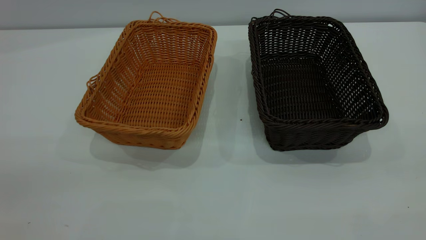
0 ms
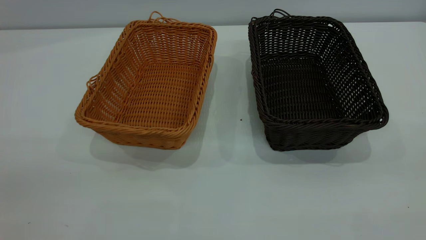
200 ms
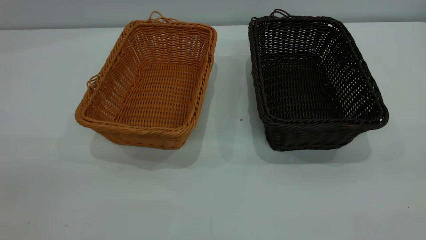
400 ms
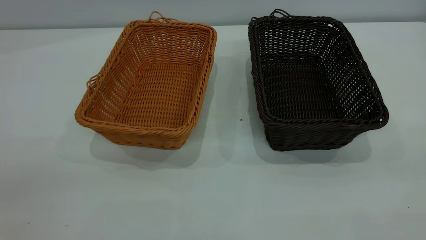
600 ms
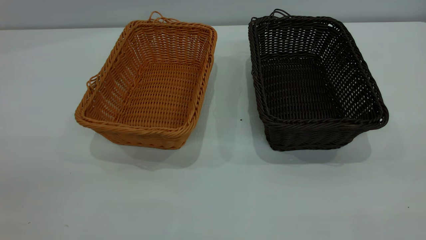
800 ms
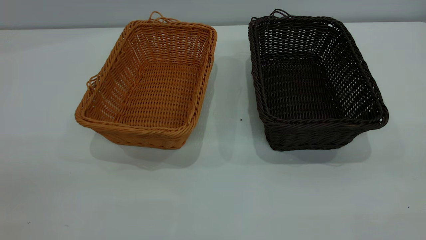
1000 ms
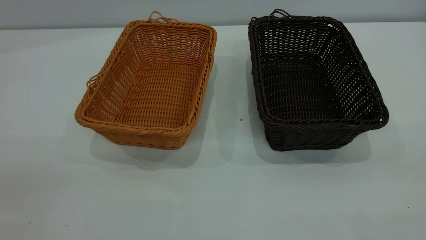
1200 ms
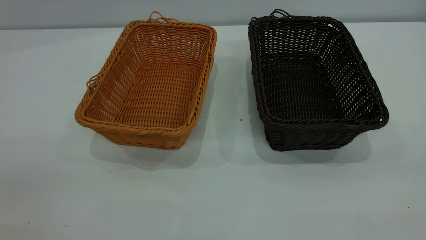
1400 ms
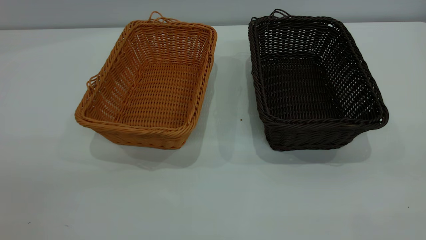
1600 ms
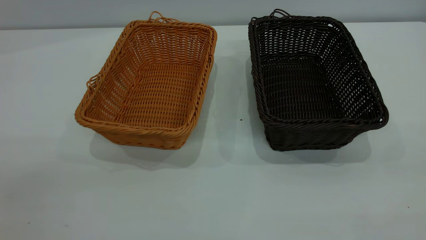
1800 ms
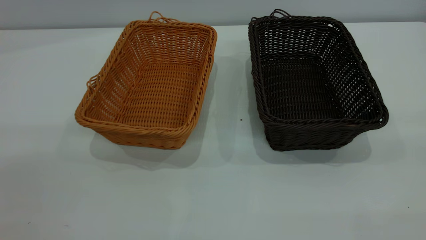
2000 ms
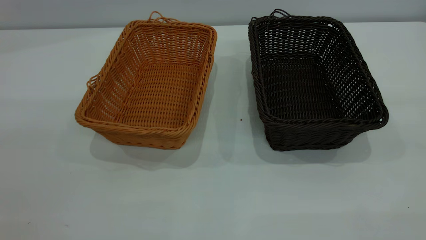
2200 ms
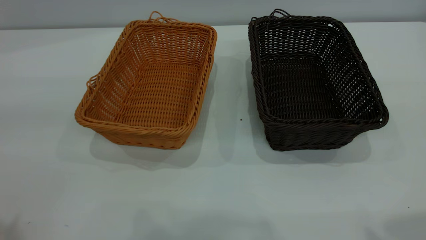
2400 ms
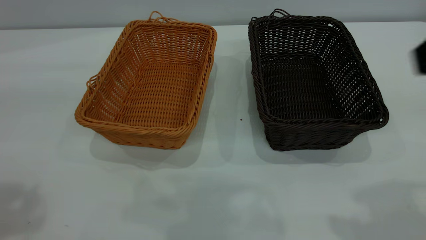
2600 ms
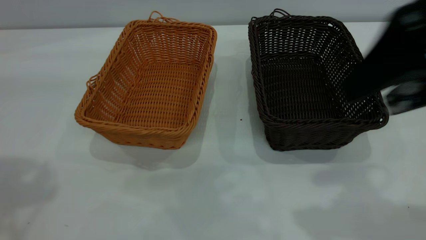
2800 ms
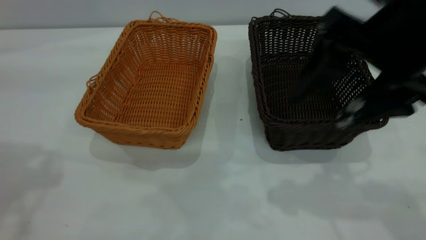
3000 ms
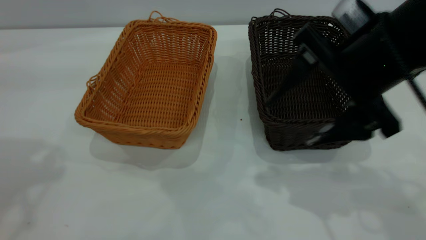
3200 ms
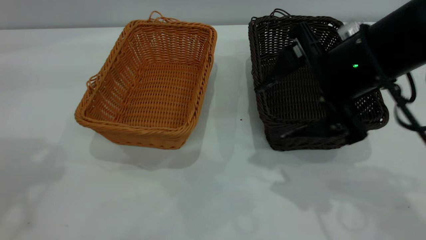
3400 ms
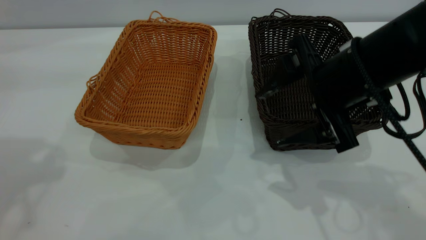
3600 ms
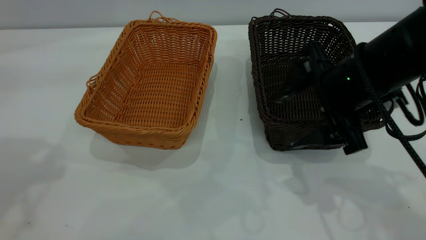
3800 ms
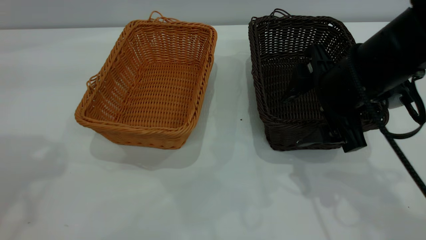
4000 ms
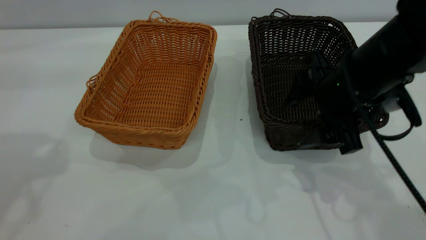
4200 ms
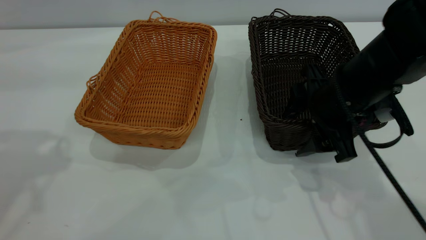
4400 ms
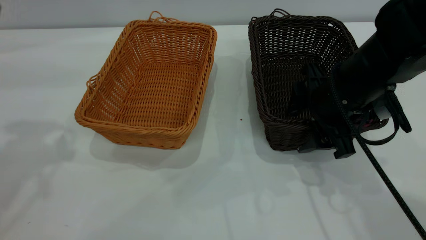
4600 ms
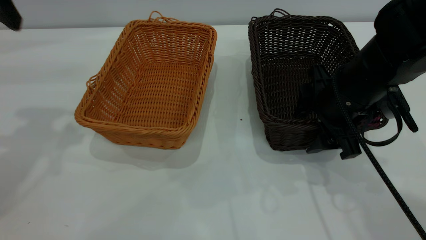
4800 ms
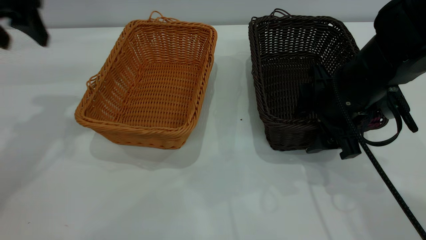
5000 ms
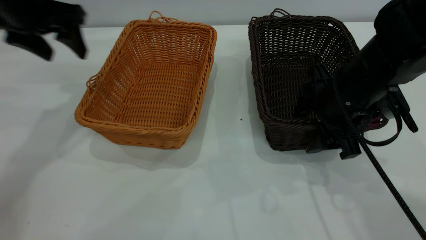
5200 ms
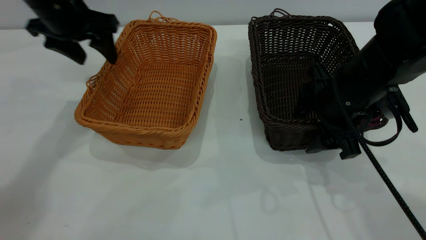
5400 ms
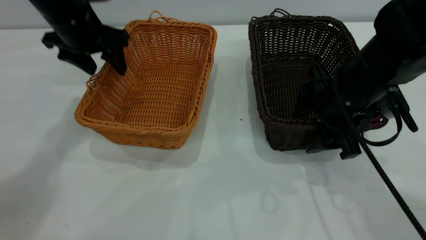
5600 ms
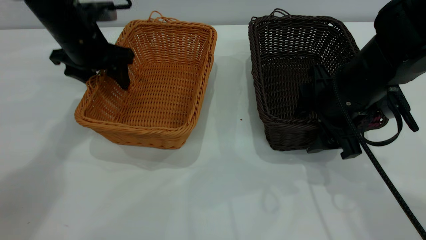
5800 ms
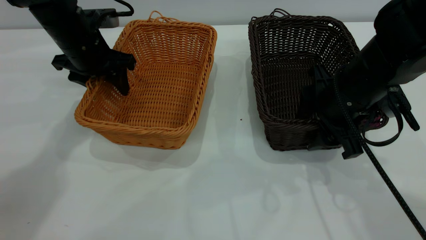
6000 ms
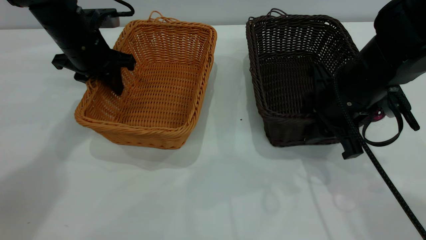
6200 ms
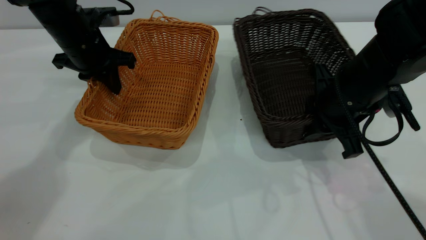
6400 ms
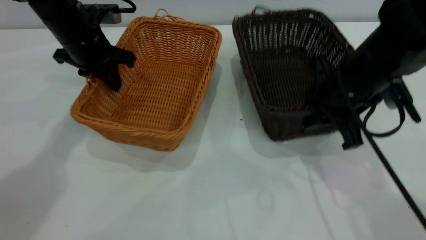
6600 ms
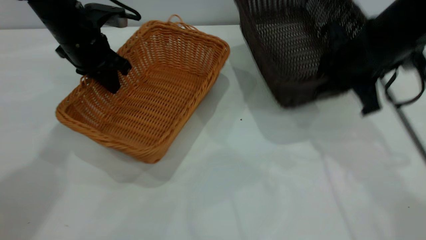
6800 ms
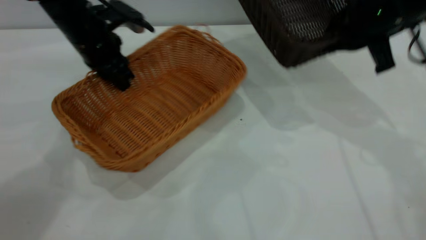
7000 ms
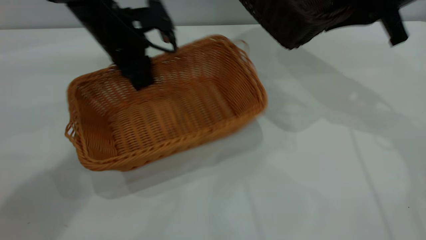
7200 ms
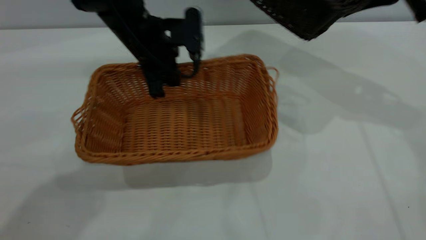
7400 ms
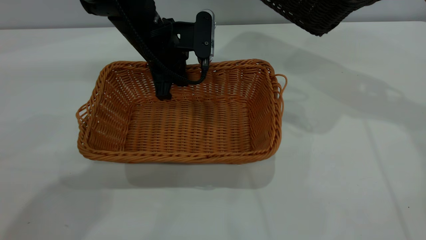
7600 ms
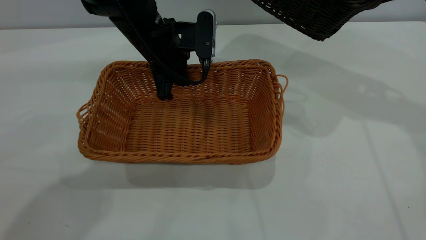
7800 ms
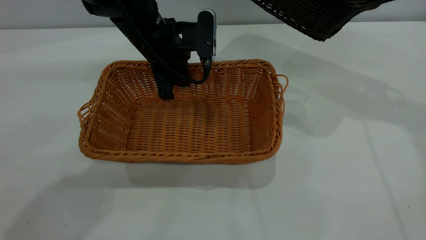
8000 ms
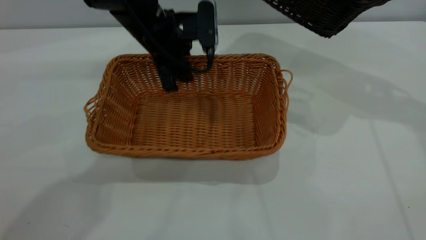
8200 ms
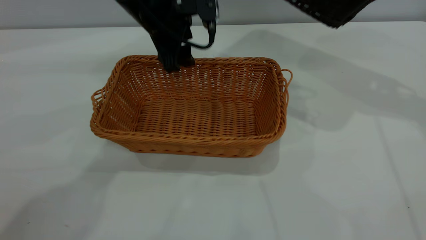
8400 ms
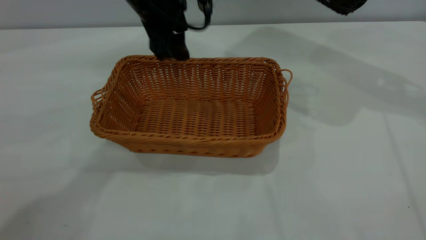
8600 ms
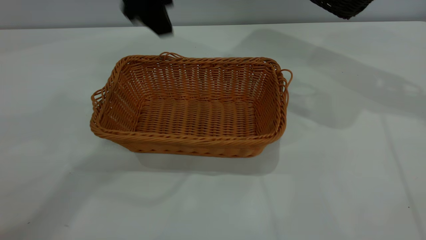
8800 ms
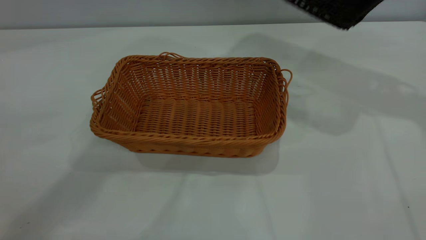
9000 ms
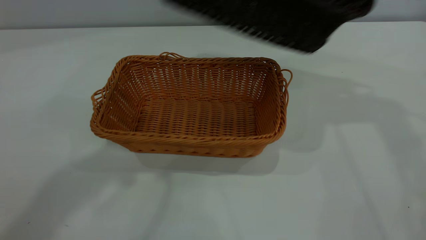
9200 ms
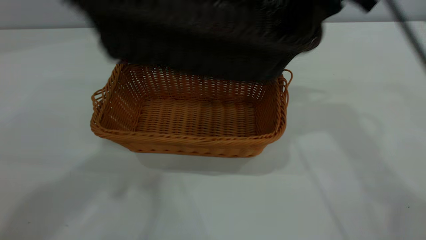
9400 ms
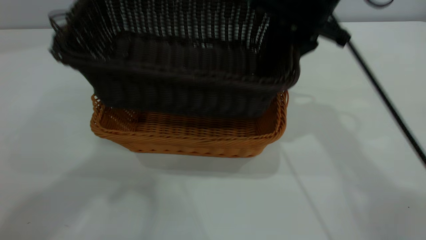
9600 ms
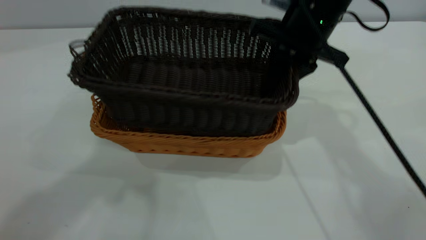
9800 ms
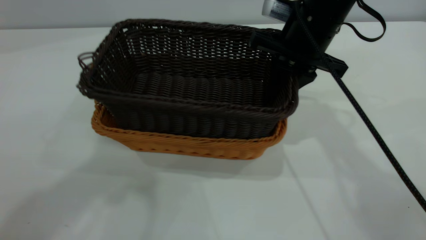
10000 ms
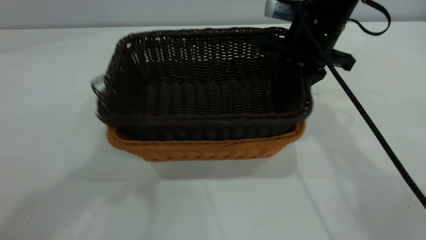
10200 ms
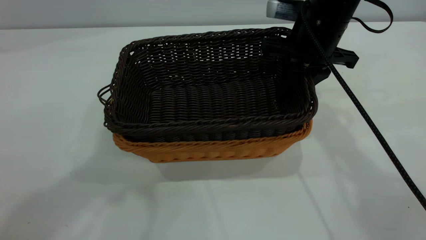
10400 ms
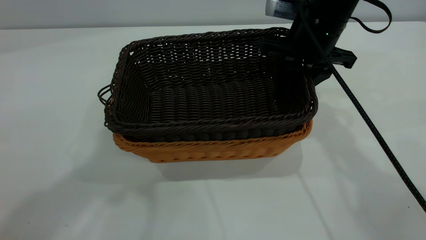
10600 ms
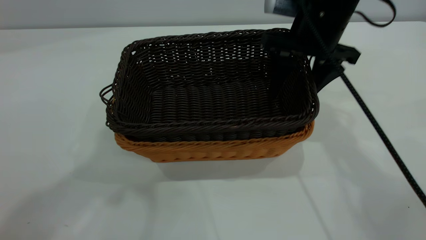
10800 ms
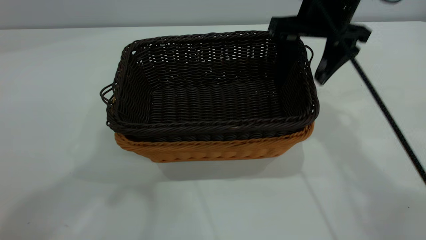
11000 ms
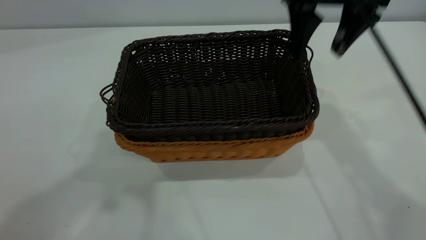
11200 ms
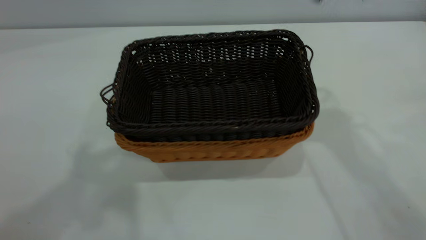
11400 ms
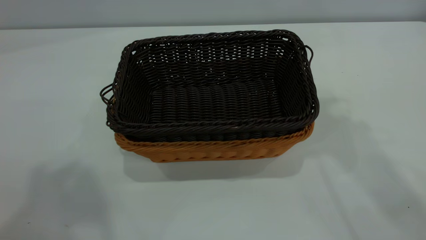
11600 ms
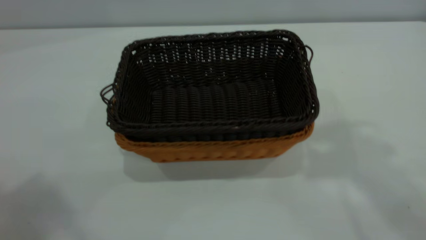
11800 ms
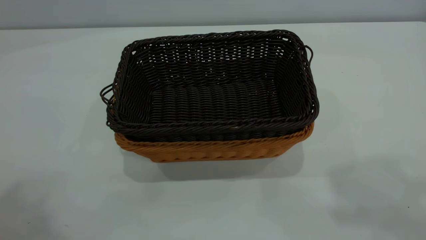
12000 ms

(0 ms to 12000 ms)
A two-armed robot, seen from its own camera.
Task of the whole recording: the left gripper grasp the brown basket and place it in the center of the table, the right gripper grasp the black basket and place it inside the brown one.
Step, 0 ms - 6600 ms: Pick up the light basket with the right gripper.
Step, 6800 ms - 8600 ms: Place the light-colored basket in the center.
Step, 8800 ms - 11200 ms: Place the dark basket on top of the light basket.
0 ms - 1600 ms: Both grippers stay put.
1600 ms - 3000 ms: The right gripper shifts some 30 cm forward, to the left and downward.
3000 ms - 4400 ms: The right gripper is displaced downward and forward by roughly 15 cm.
4400 ms - 6000 ms: The left gripper heads downward, forward and to the right, covering approximately 25 cm.
6000 ms - 7600 ms: The left gripper shifts about 10 cm to the right, and closes up; the right gripper moves upward, forward and to the right, about 20 cm, and closes up.
7600 ms - 9000 ms: The left gripper travels upward by approximately 25 cm, and opens its fingers.
9000 ms - 10400 ms: The left gripper travels upward and backward by roughly 10 cm; the right gripper heads to the left and downward, covering approximately 20 cm.
10400 ms - 12000 ms: The left gripper shifts approximately 15 cm backward, to the left and upward, while the right gripper shifts some 40 cm upward and backward, and opens up.

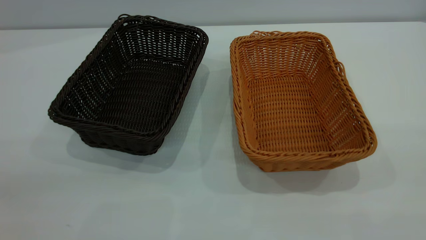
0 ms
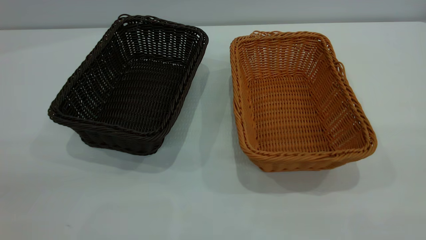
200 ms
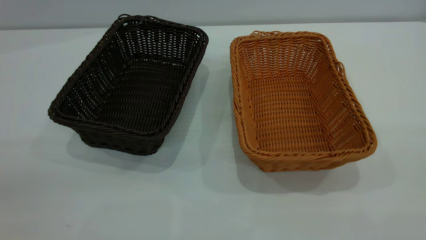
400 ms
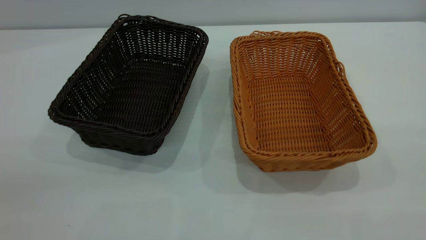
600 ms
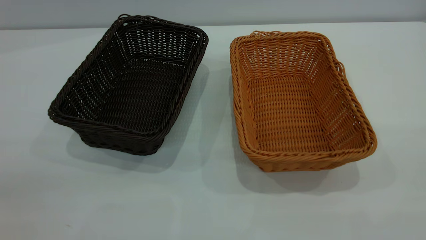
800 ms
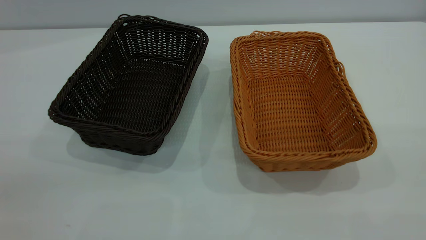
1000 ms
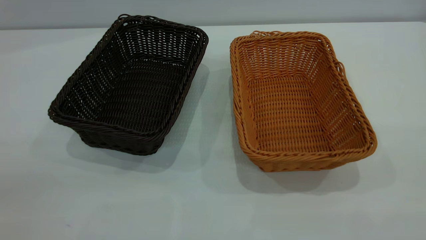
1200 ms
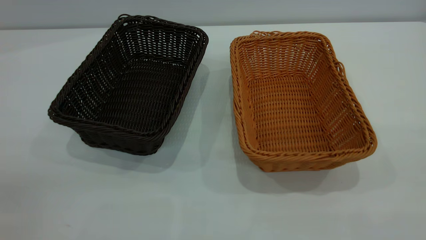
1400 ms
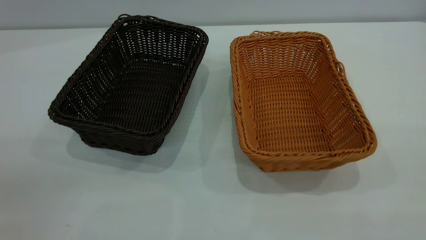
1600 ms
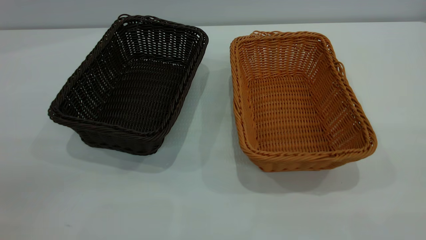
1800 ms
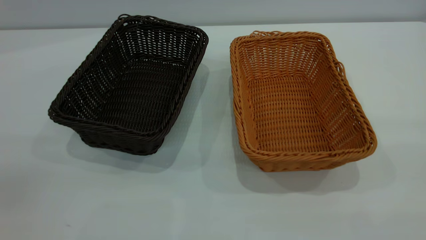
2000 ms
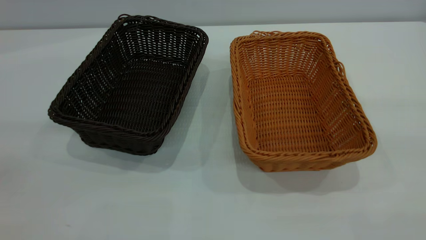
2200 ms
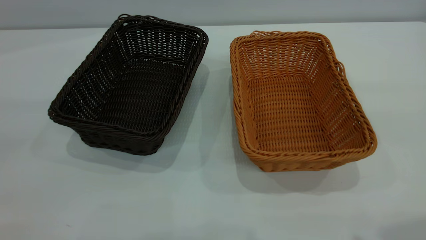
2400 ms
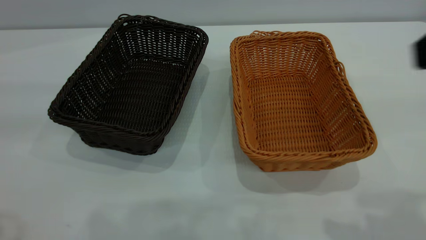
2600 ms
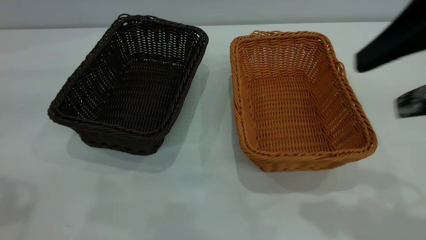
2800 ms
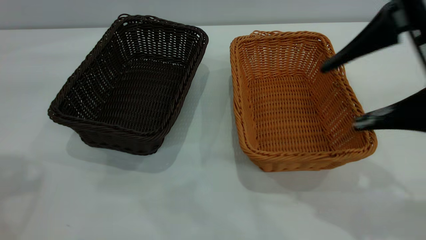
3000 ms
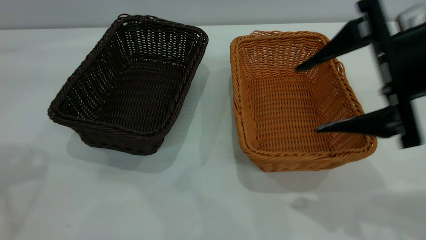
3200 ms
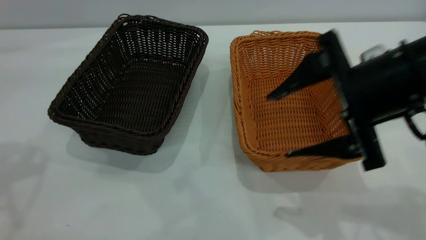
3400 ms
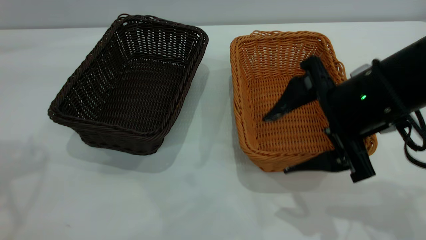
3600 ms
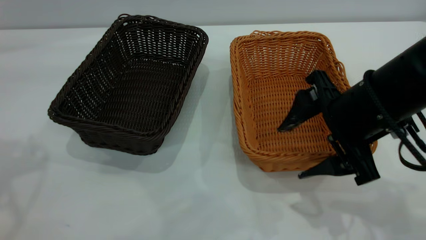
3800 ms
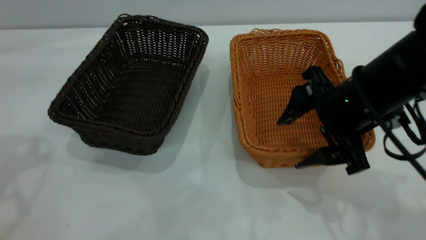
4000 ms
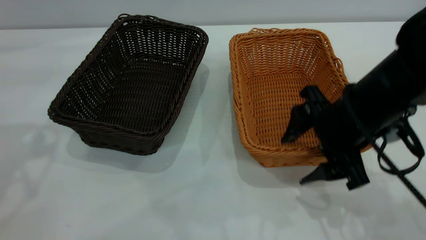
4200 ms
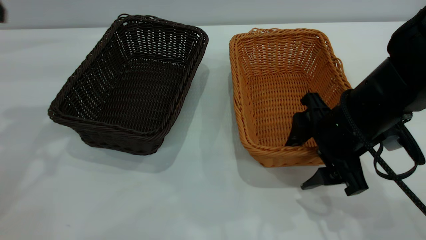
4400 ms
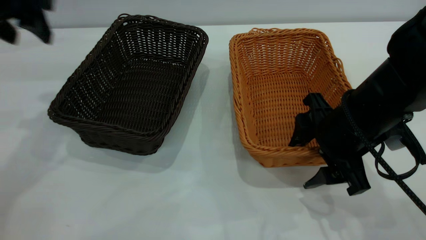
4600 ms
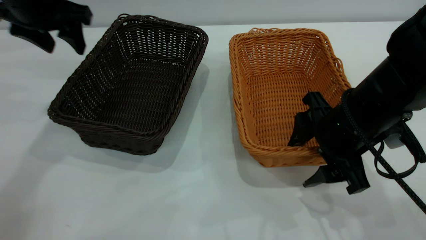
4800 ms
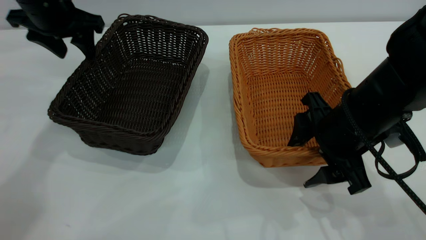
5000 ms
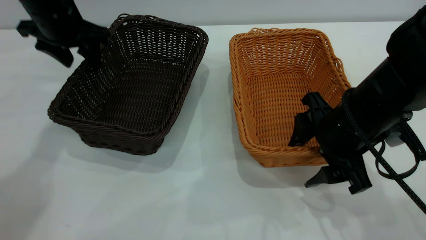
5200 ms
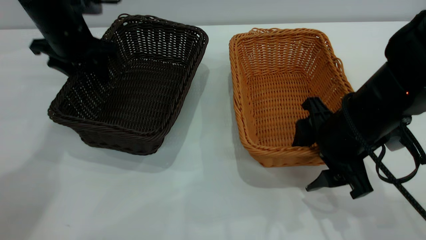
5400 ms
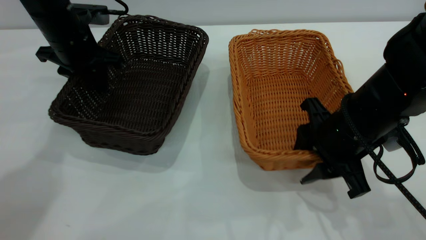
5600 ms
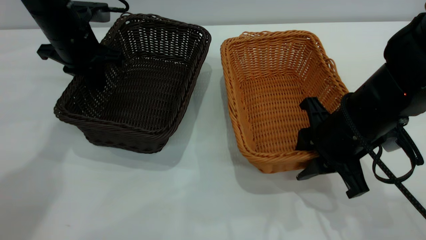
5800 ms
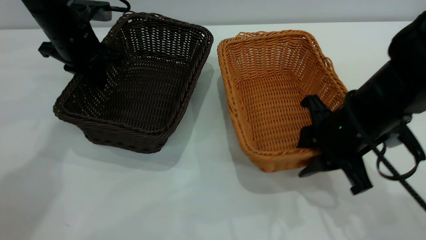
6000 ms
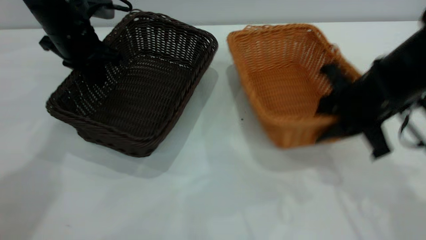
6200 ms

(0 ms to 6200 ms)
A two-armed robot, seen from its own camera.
Task of the whole recording: the left gripper grasp the black basket and place it in the center of the table, the right gripper grasp the brown basket and place it inside the black one.
Step, 0 ms - 6200 ms: Pick up the light basket with the right gripper.
0 ms - 1600 ms: Both grippers stay about where they are.
1600 ms - 3200 ms: The right gripper heads forward and downward, covering about 30 cm.
3200 ms - 4600 ms: The left gripper goes roughly 15 cm forward, downward and to the right; the right gripper shifts approximately 10 cm downward.
4600 ms - 6200 ms: The right gripper ends up approximately 5 cm from where it was, and closes its fingers, while the left gripper heads downward and forward, covering about 10 cm, and closes its fingers.
